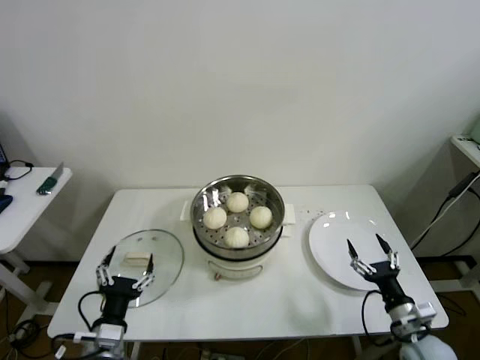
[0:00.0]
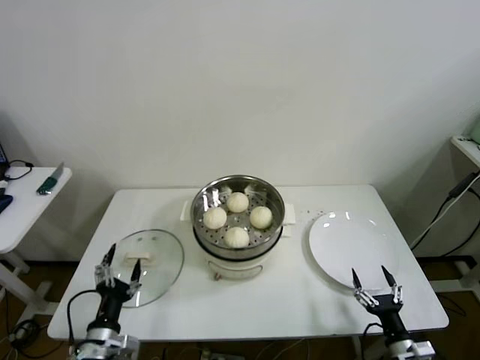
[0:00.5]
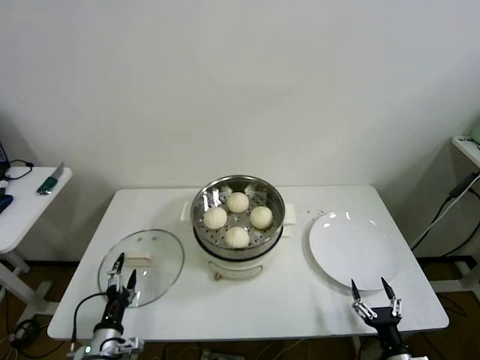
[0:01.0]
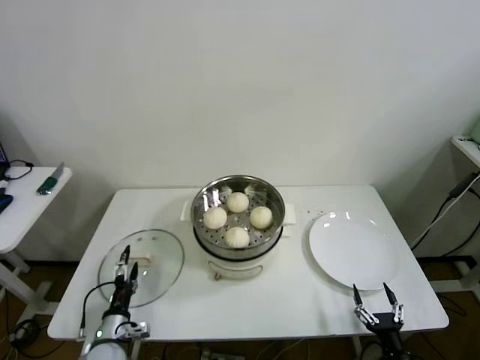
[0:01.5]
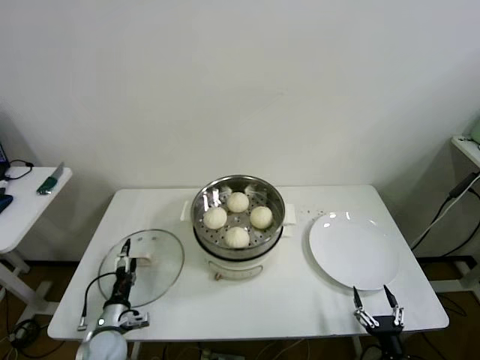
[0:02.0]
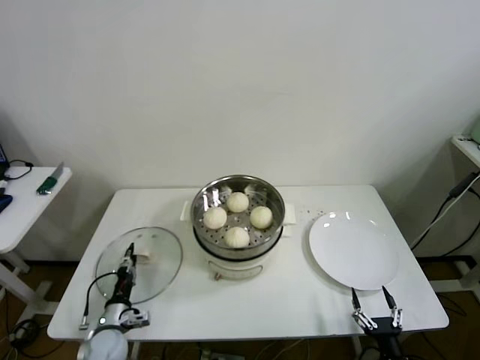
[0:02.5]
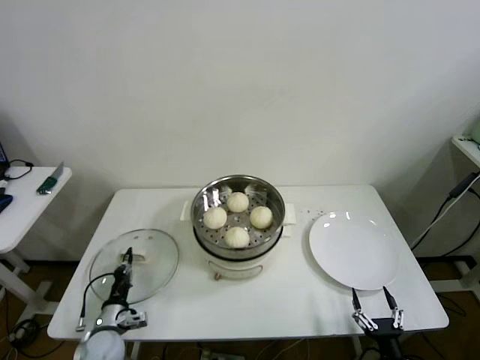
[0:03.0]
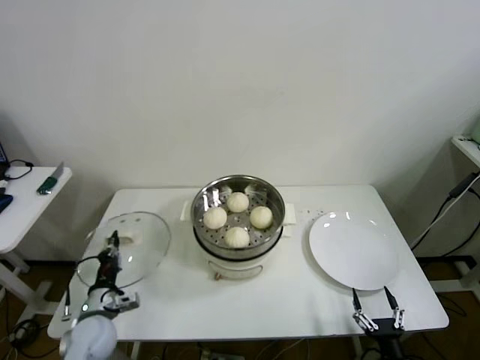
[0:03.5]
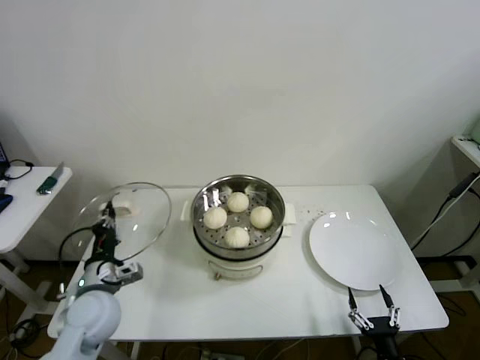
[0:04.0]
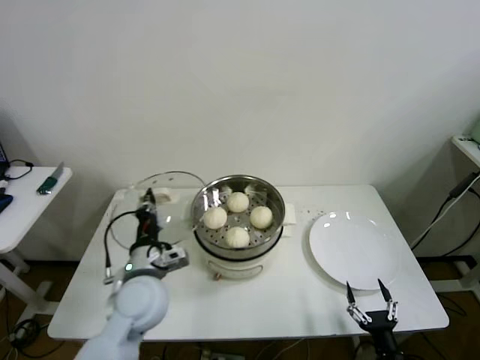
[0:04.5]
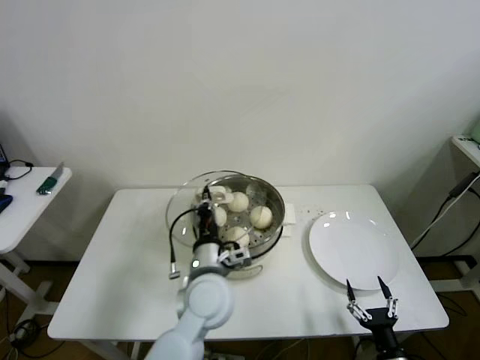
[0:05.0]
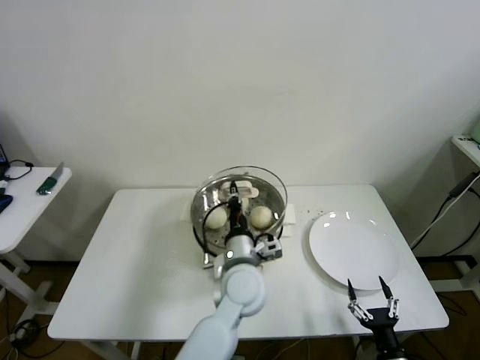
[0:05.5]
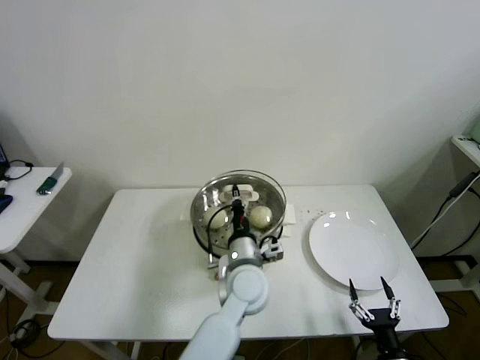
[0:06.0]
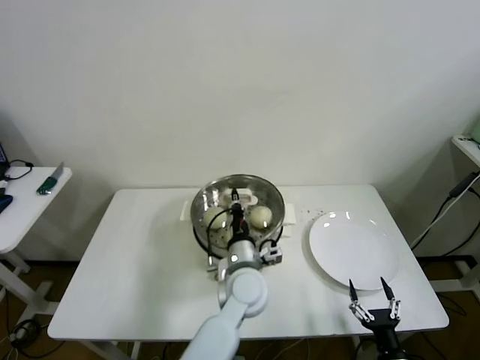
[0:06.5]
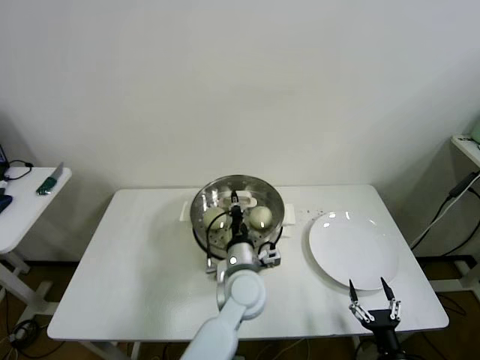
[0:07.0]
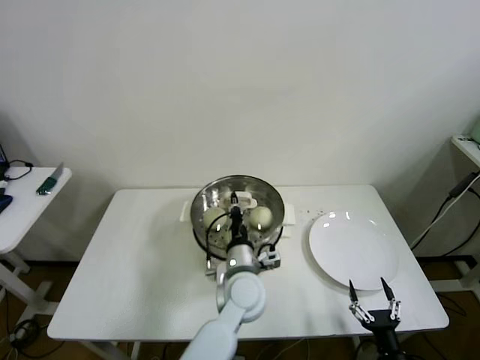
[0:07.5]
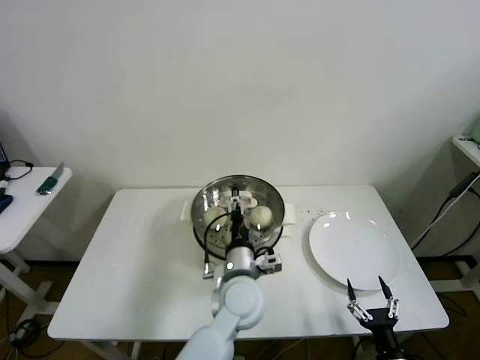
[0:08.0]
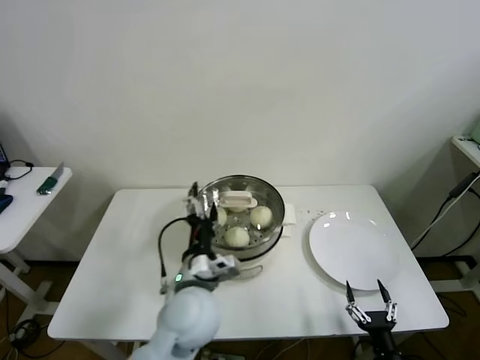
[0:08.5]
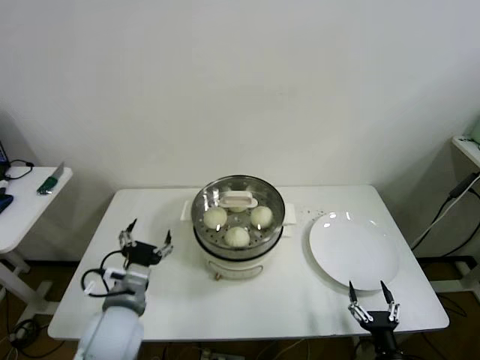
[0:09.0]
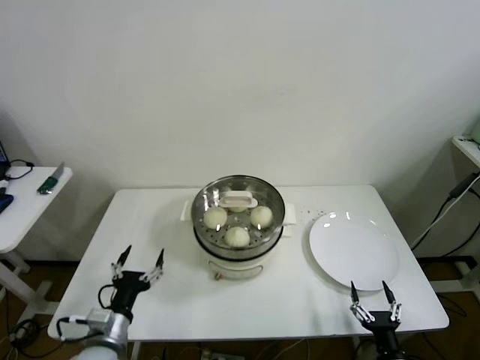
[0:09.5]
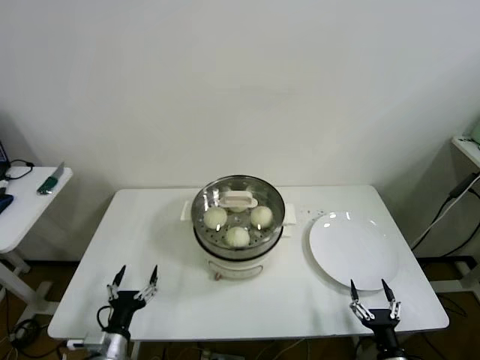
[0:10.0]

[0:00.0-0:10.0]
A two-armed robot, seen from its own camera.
Step, 0:00.0 to 0:02.5: Grasp the pot lid with left gripper.
Step, 0:03.0 to 0:07.0: Place the pot lid on the steamer with left gripper.
0:00.0 to 0:02.0: The right gripper heads backward and downward, covering some 15 cm; the left gripper heads downward, forward and to the left, covering about 20 cm.
0:02.0 to 0:04.0: The left gripper moves upward, about 15 cm, and closes its fingers.
0:04.0 to 0:06.0: The left gripper heads to the right, covering some 30 cm.
0:06.0 to 0:08.0: The left gripper opens.
0:08.0 to 0:10.0: The left gripper goes about 35 cm to the left and backward, and opens its fingers.
